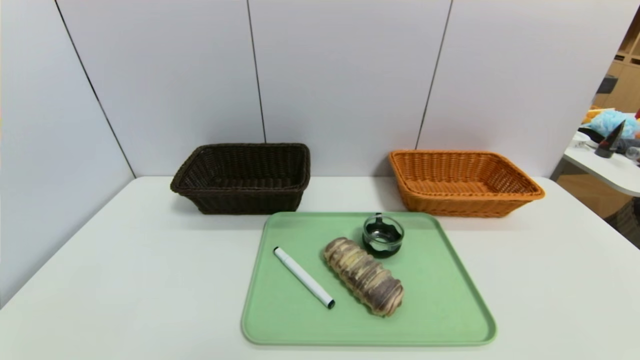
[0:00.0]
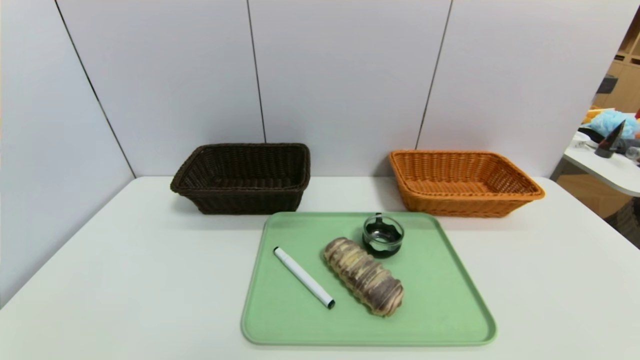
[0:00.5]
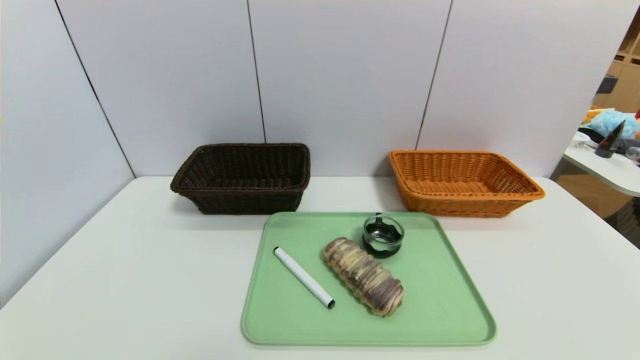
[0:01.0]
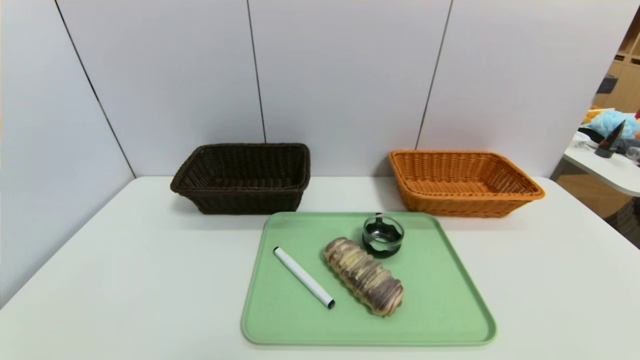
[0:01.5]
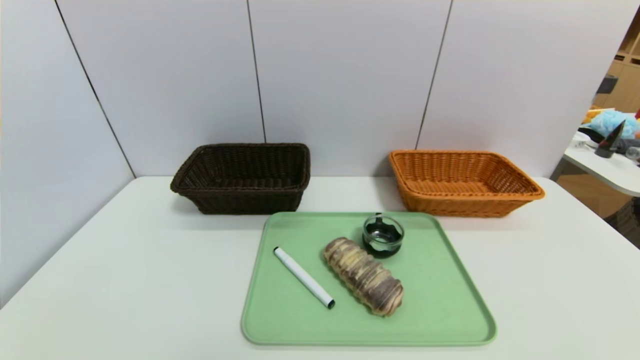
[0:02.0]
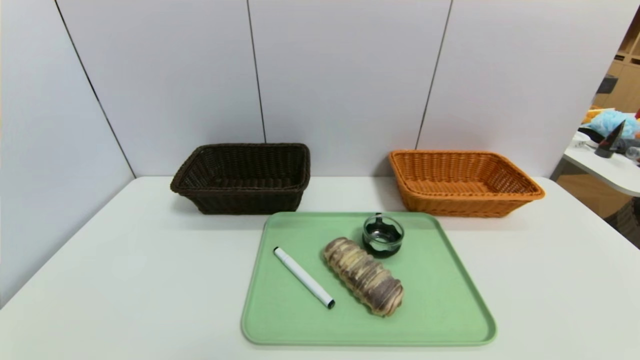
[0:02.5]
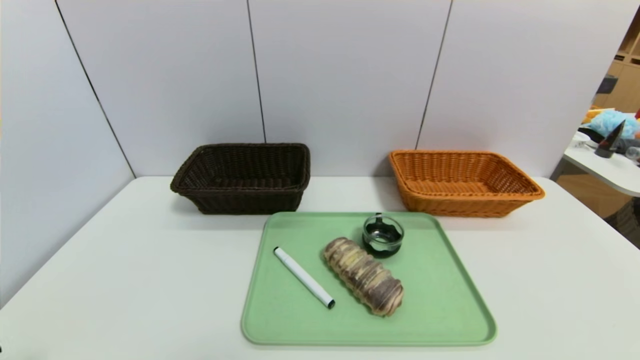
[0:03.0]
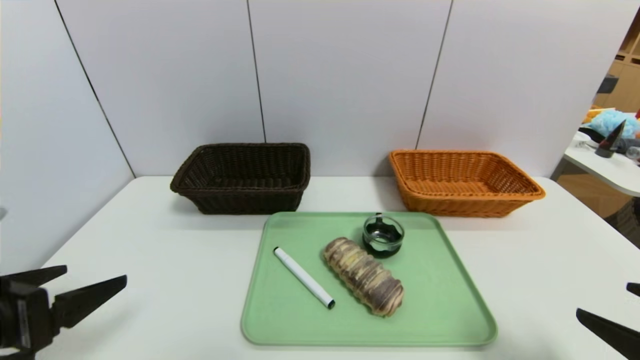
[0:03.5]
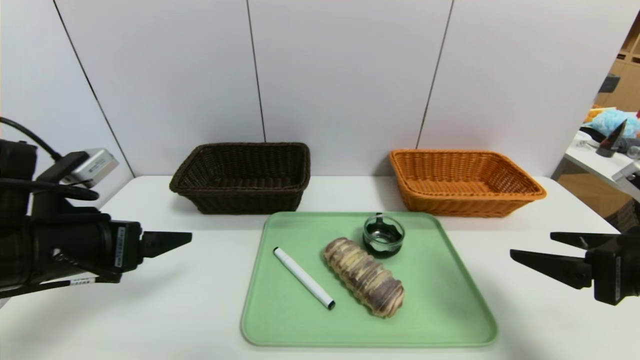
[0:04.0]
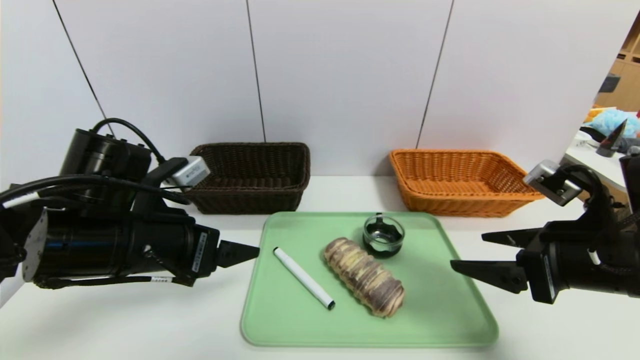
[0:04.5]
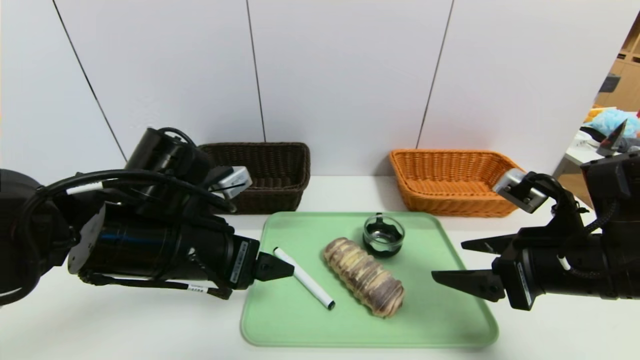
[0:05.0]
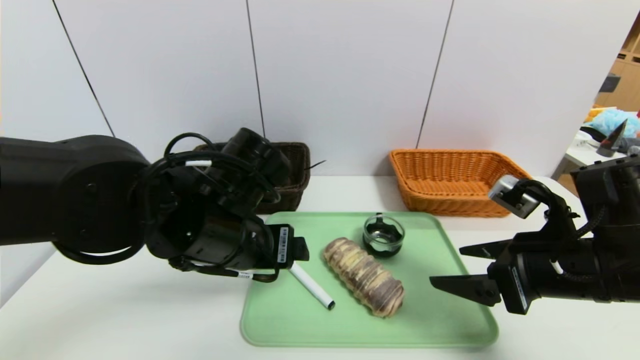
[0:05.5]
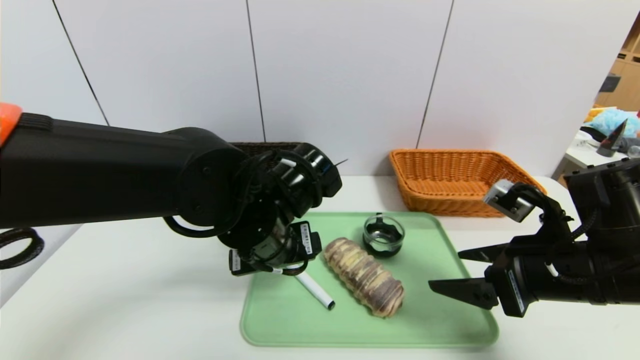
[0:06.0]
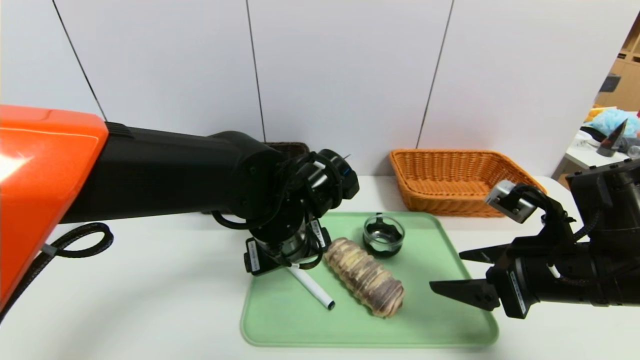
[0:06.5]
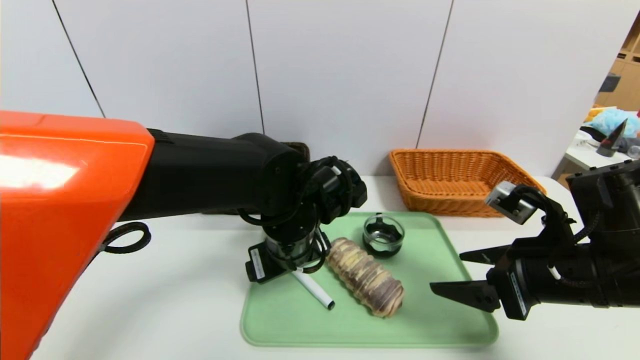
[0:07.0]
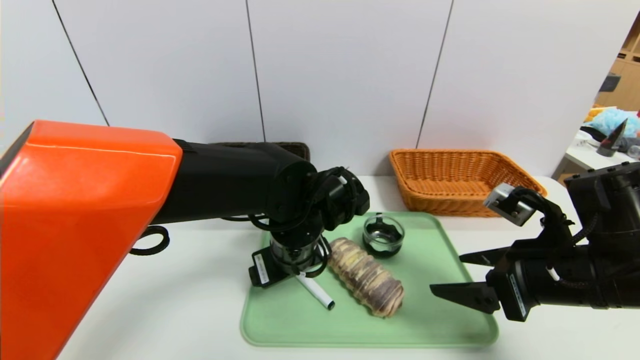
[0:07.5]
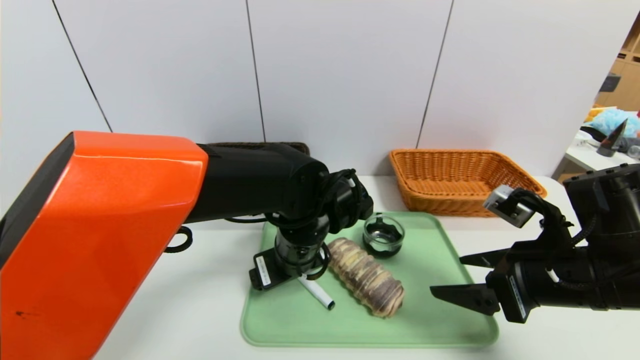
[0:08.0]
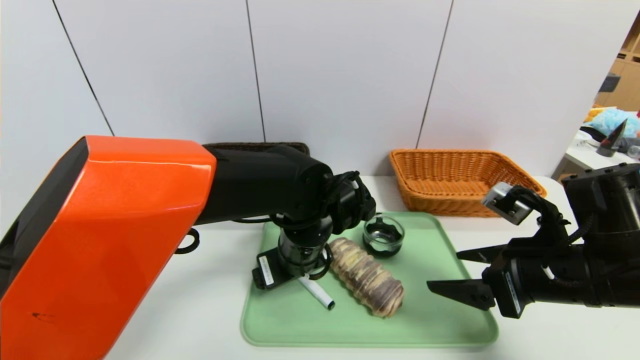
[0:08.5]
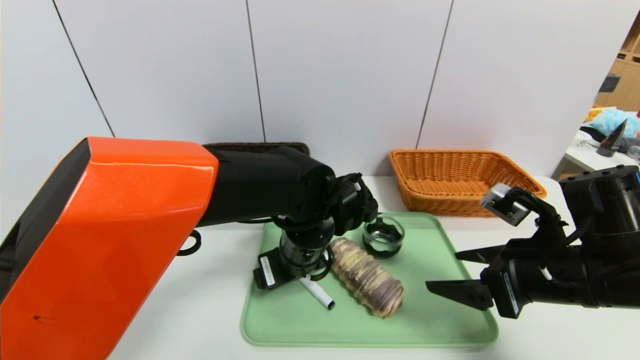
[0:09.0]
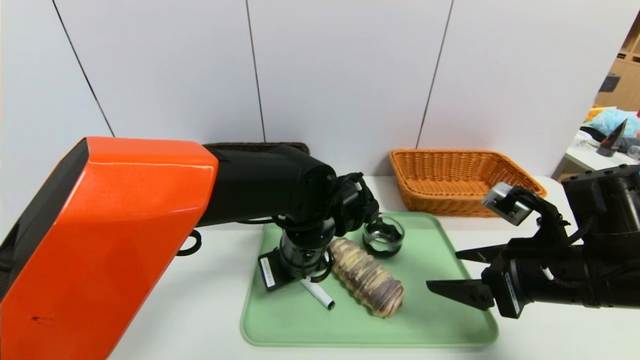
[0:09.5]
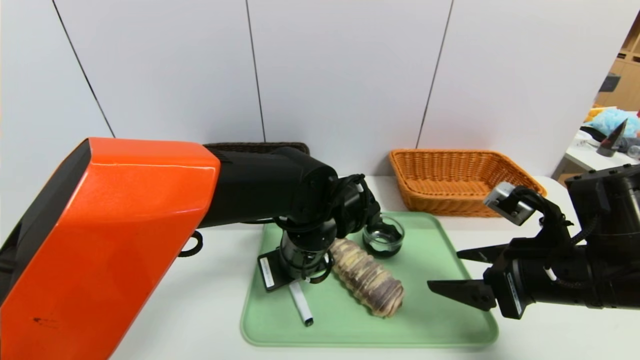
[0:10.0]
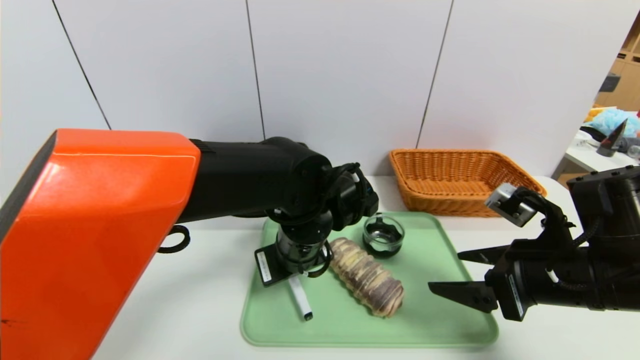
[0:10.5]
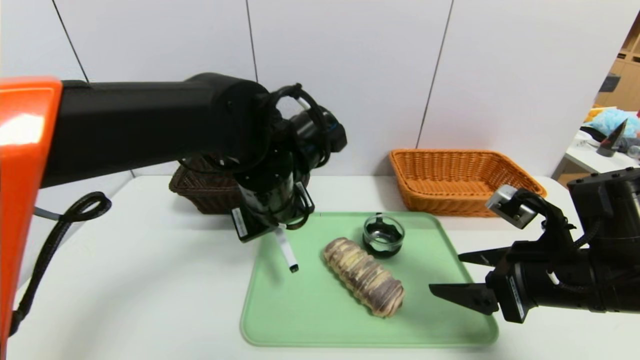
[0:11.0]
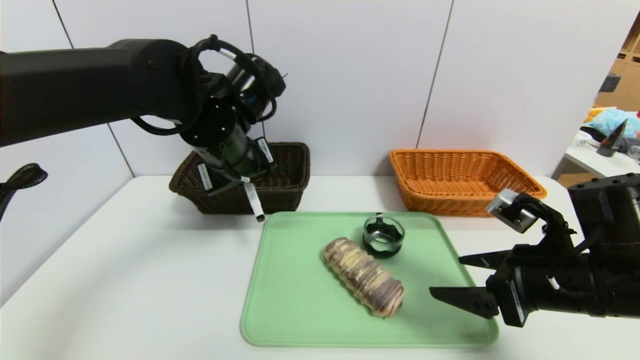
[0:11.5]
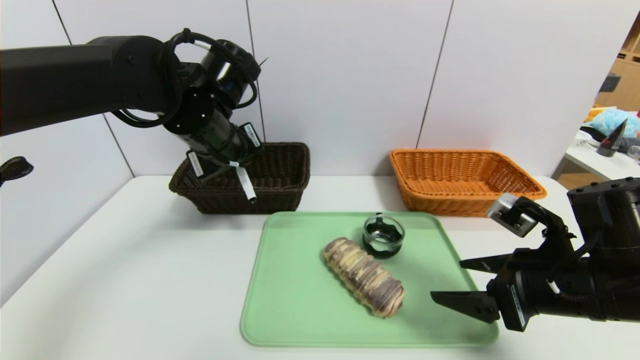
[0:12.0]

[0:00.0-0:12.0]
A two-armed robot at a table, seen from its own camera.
Task of the whole recording: place the food in the right basket with the right gripper, and place the non food items in the left basket with the left gripper.
0:00.0 to 0:02.0: Both grippers stay about where they are.
0:02.0 to 0:04.0: The two grippers go roughly 25 cm forward and upward.
0:04.0 to 0:06.0: The left gripper is displaced to the right by approximately 20 cm, while the right gripper heads to the left, covering some 5 cm.
0:06.0 to 0:08.0: The left gripper moves about 5 cm.
0:08.0 to 0:10.0: The left gripper closes up.
0:10.0 to 0:12.0: The left gripper heads upward, to the left and forward, covering about 20 cm.

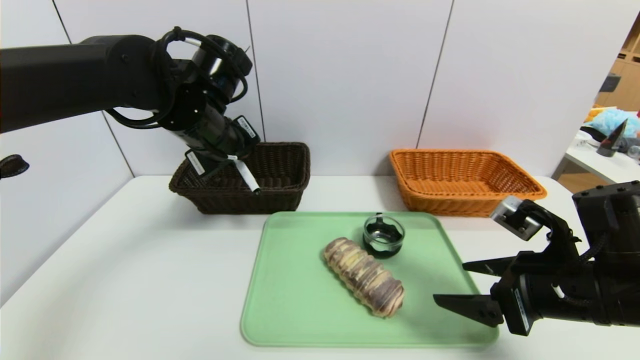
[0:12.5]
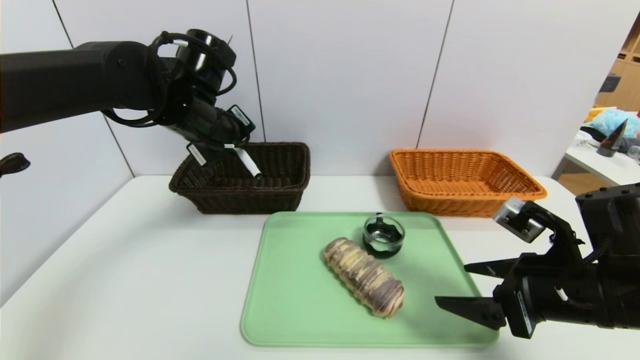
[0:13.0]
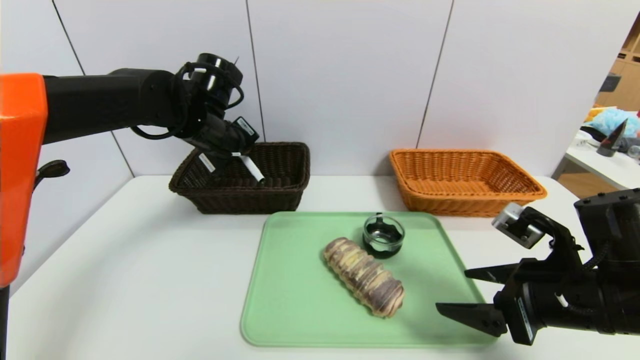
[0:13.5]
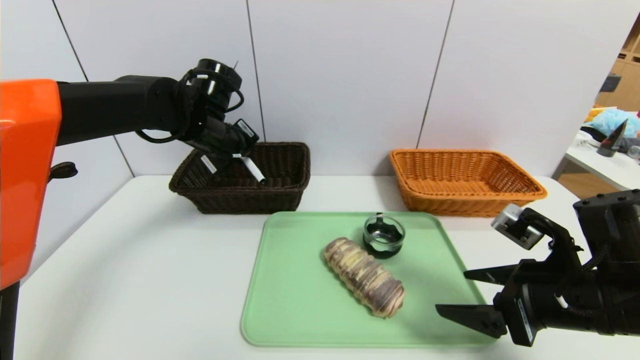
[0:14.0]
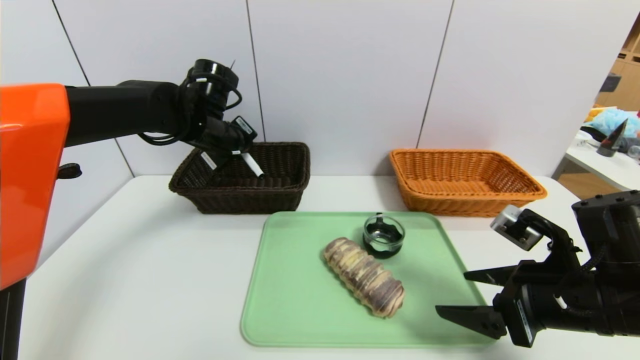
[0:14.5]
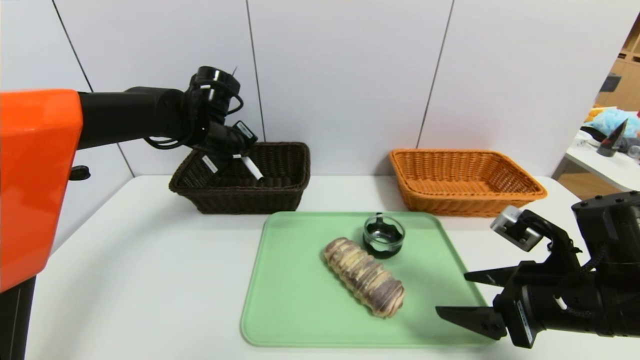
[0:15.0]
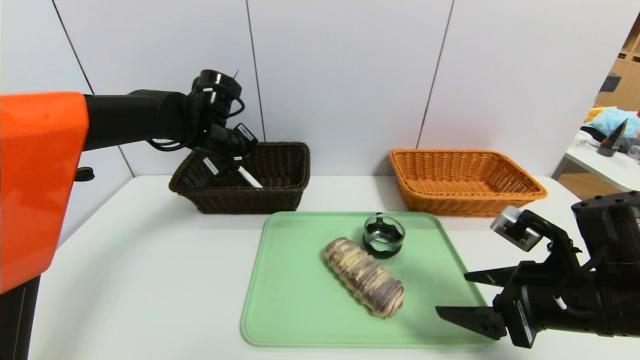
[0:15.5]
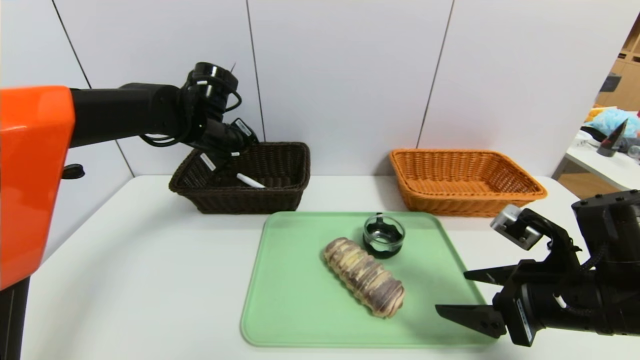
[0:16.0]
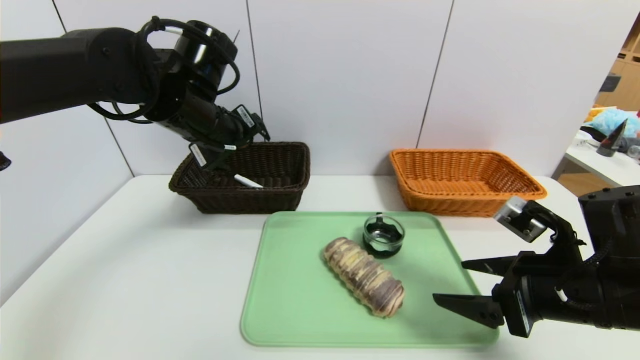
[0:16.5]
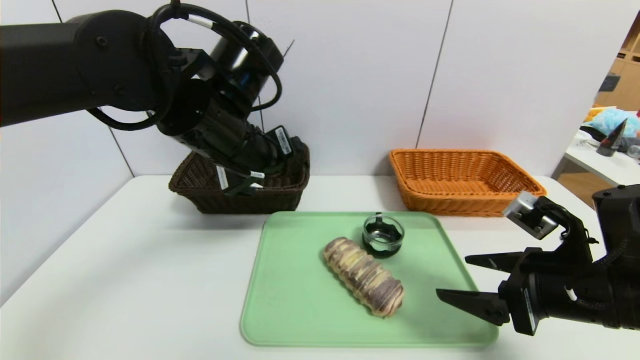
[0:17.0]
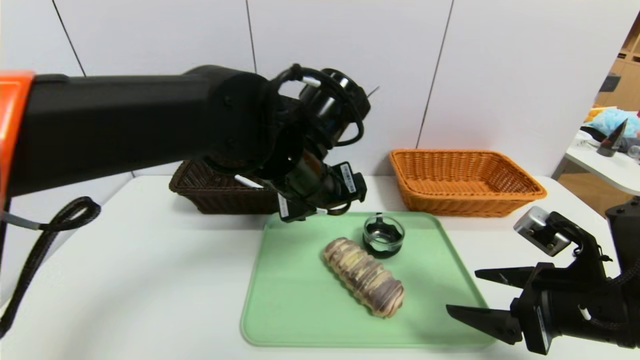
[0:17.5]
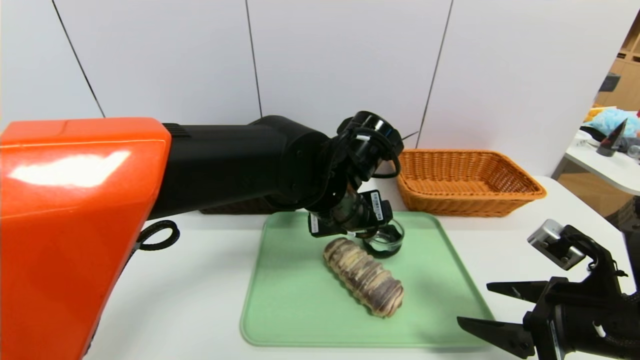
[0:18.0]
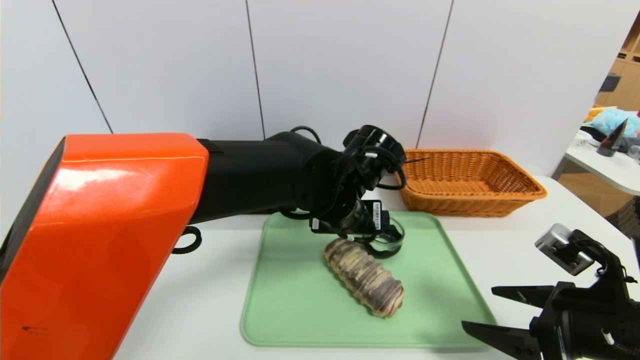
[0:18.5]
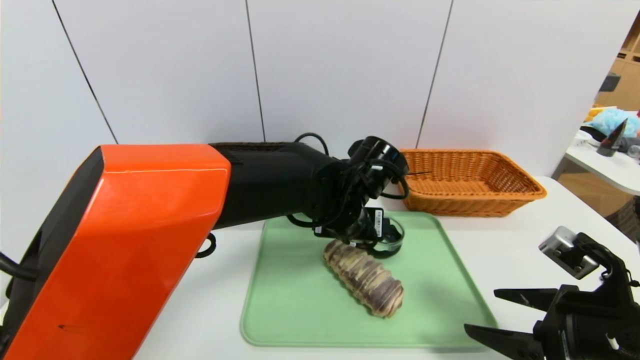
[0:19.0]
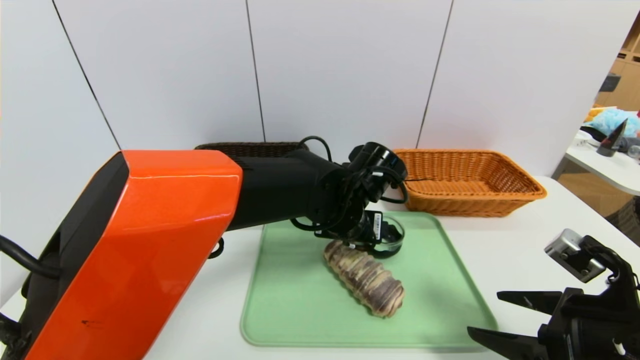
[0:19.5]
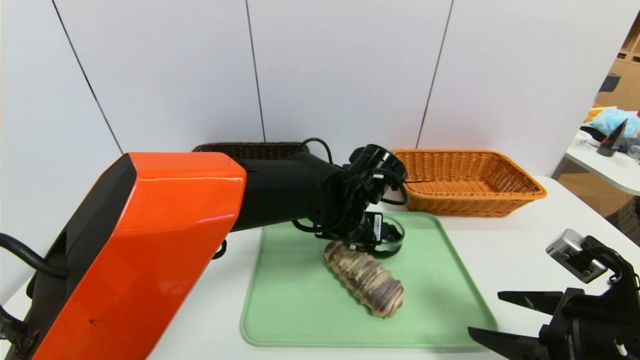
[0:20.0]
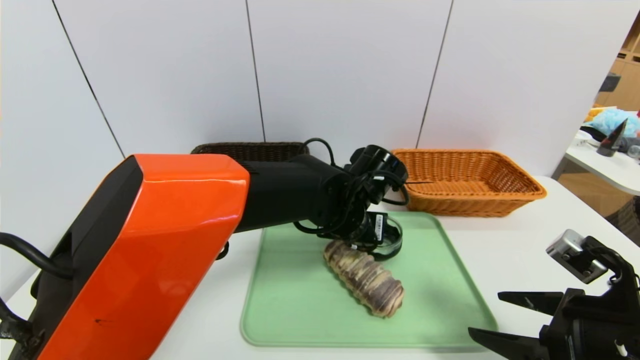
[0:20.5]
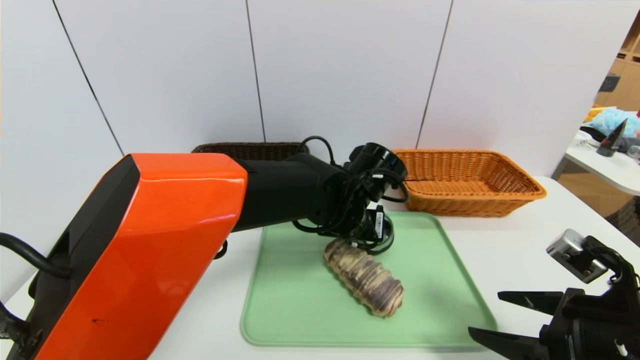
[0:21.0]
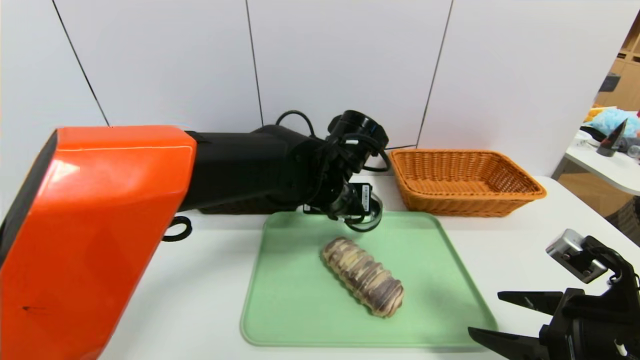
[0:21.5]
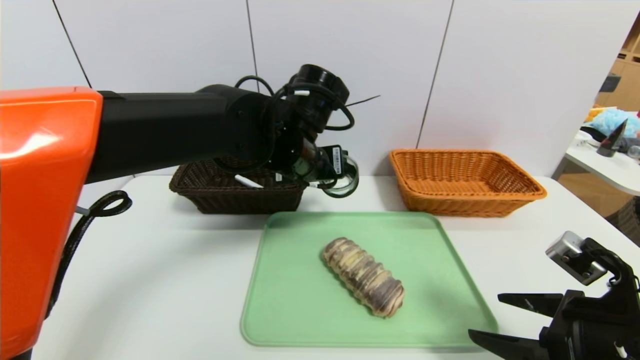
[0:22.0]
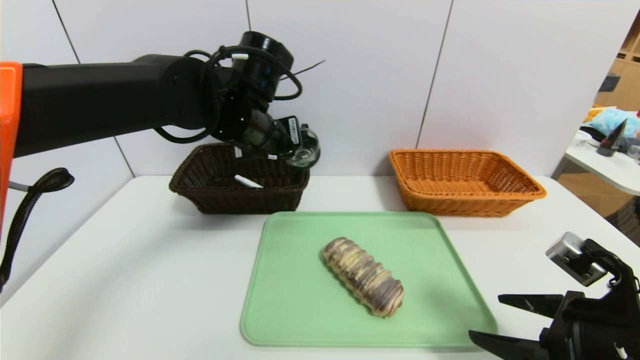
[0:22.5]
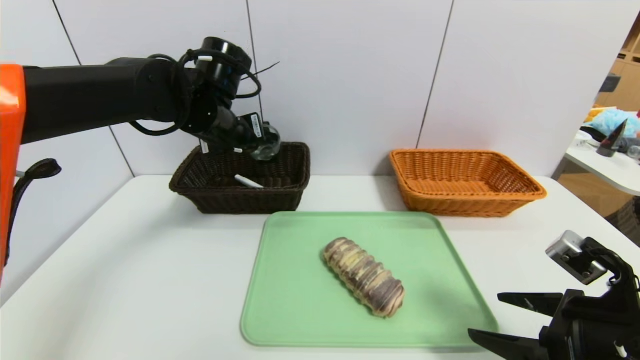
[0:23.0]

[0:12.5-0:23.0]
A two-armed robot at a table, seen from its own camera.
Task of the whole recording: place the food in the right basket with the right gripper, and place the non food items in the left basket with the left gripper.
Step, 0:12.5 to 0:15.5: Grasp the black marker and put it in the left basket.
0:12.5 to 0:14.5: The left gripper moves forward, approximately 5 cm.
0:14.5 to 0:16.5: The left gripper moves backward, approximately 5 cm, and opens.
0:16.5 to 0:19.0: The left gripper moves to the right and downward, about 20 cm.
0:19.0 to 0:21.0: The left gripper closes.
0:21.0 to 0:23.0: The left gripper travels to the left and upward by about 20 cm.
